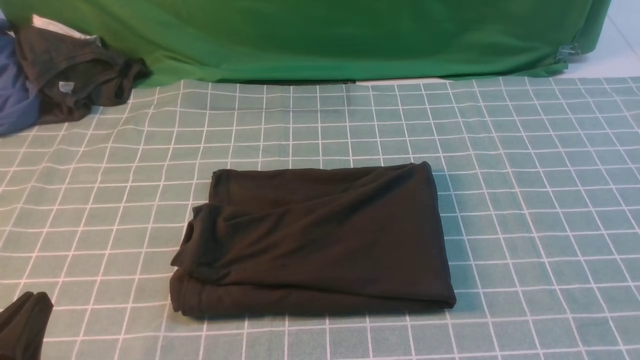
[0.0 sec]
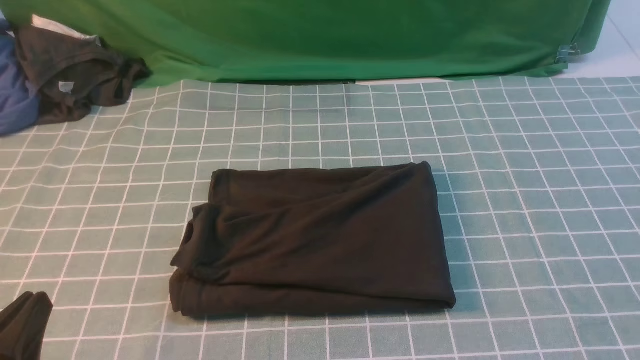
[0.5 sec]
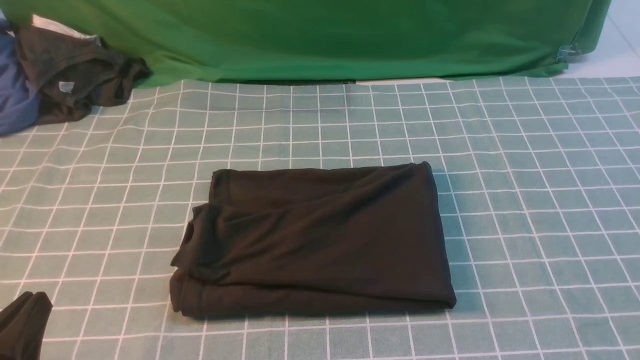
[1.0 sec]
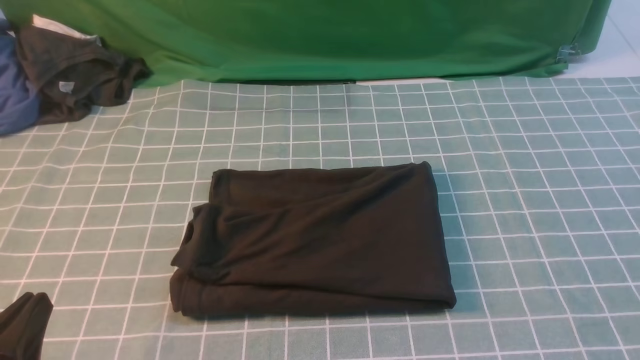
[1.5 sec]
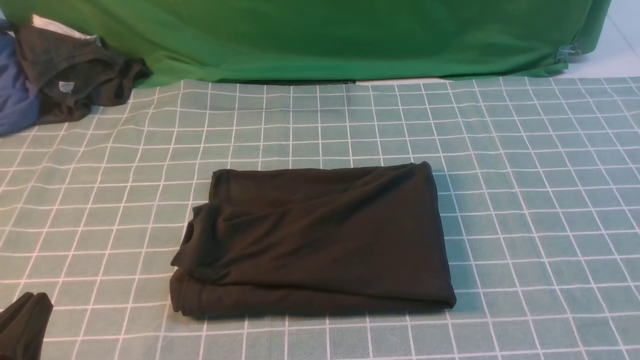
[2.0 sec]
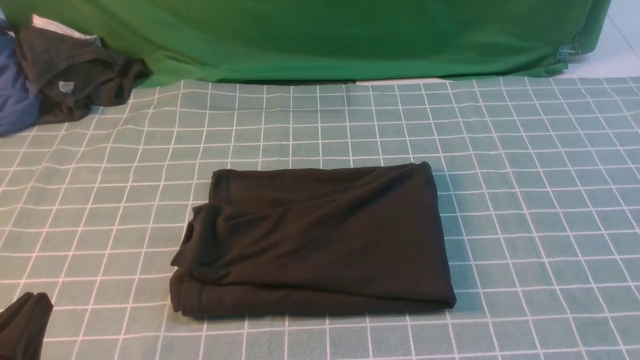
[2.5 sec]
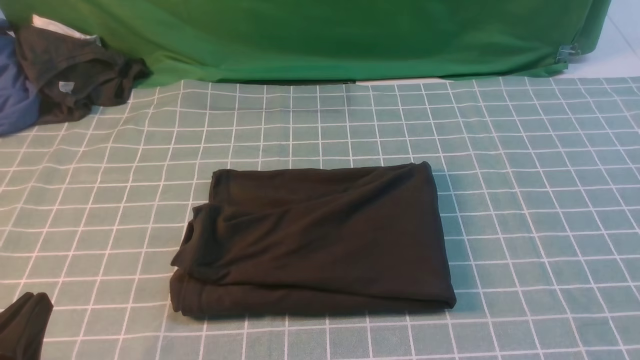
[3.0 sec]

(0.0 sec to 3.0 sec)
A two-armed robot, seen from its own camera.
1.5 sec - 3.0 sec: Neither gripper changes place.

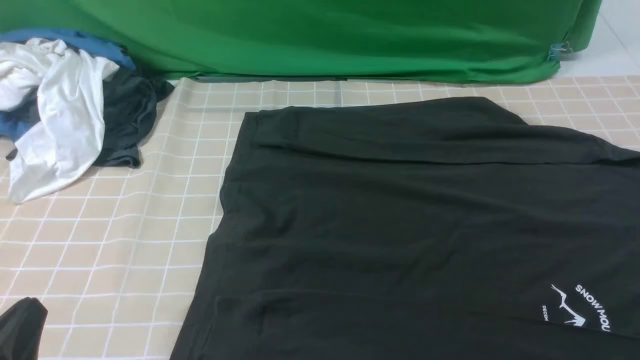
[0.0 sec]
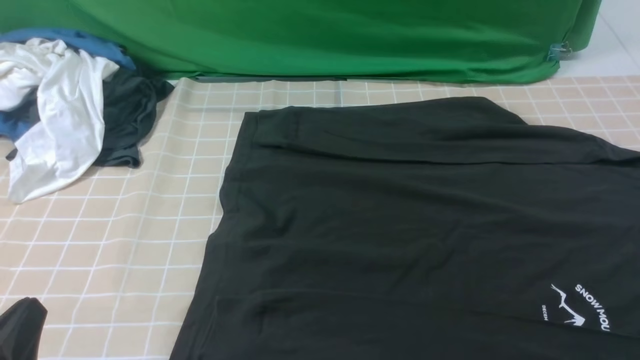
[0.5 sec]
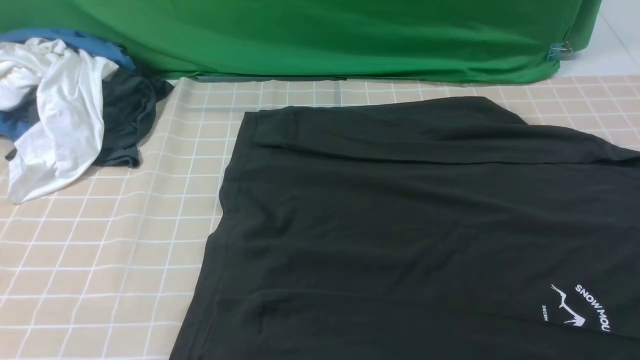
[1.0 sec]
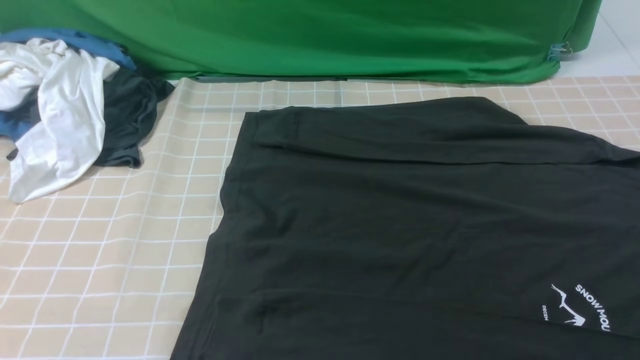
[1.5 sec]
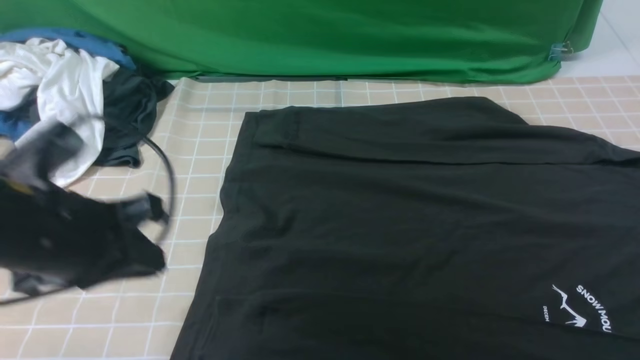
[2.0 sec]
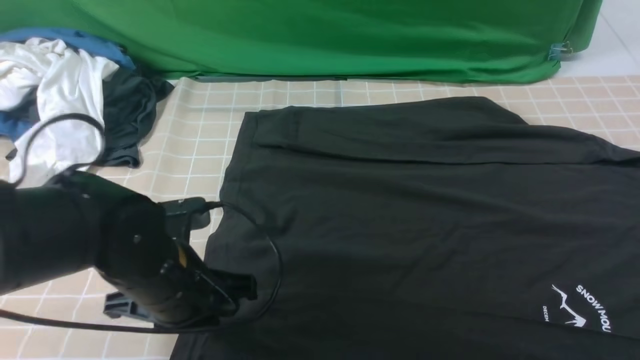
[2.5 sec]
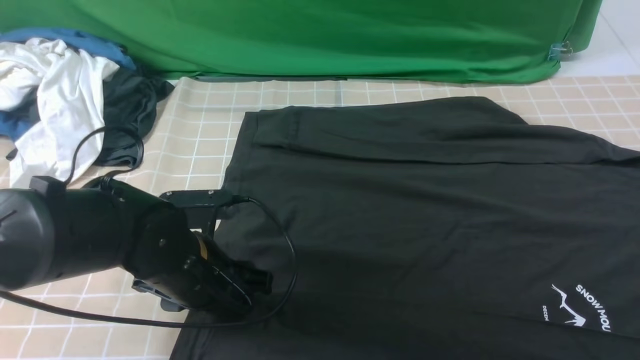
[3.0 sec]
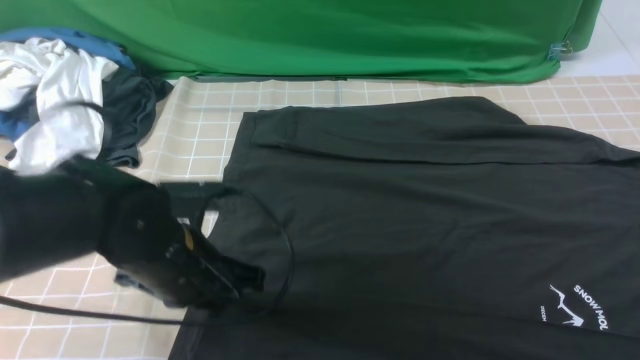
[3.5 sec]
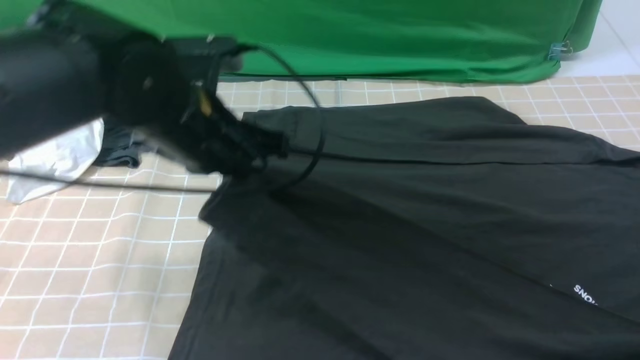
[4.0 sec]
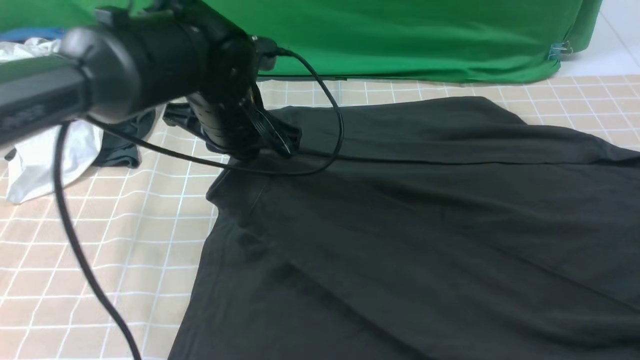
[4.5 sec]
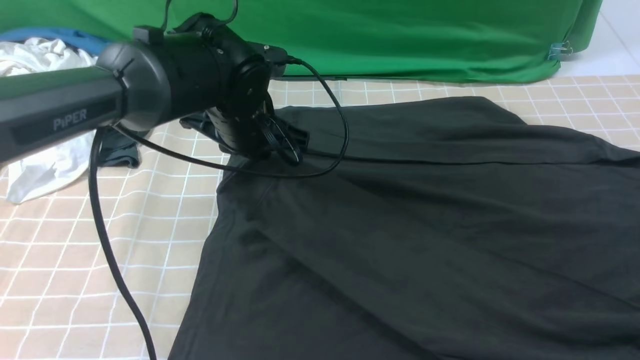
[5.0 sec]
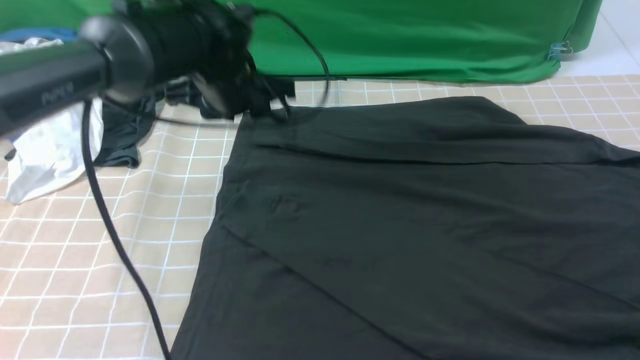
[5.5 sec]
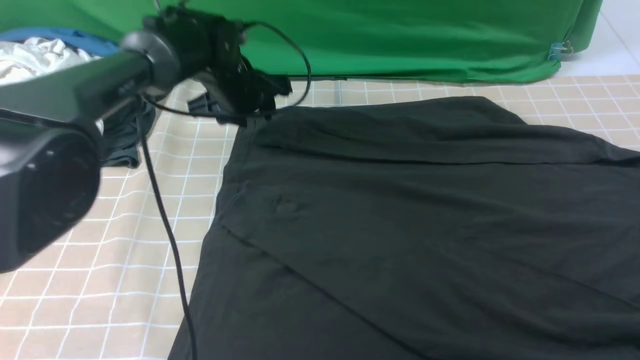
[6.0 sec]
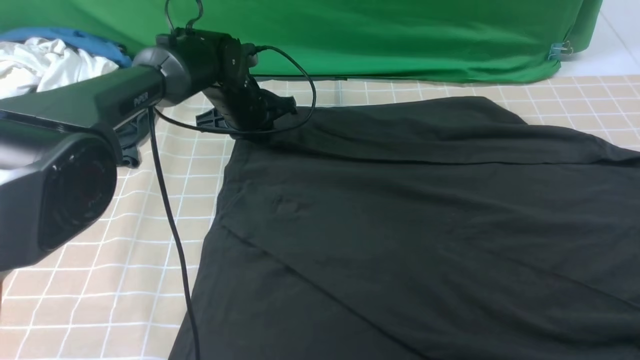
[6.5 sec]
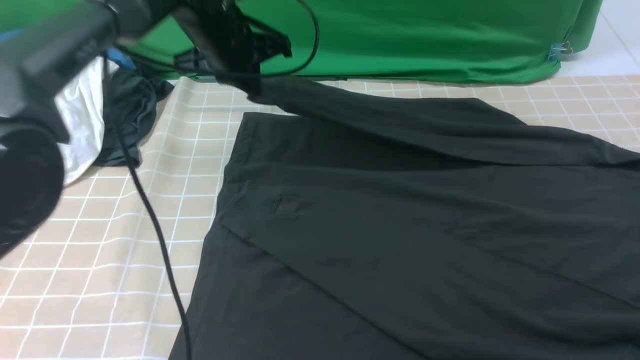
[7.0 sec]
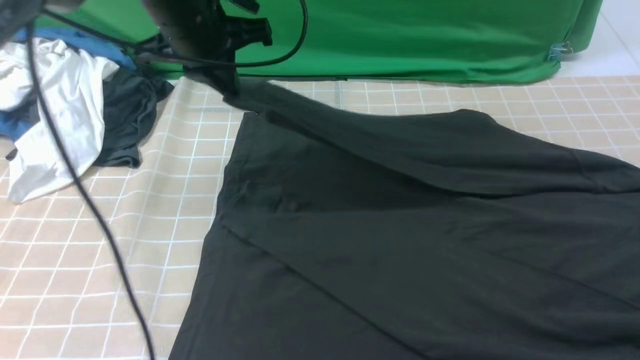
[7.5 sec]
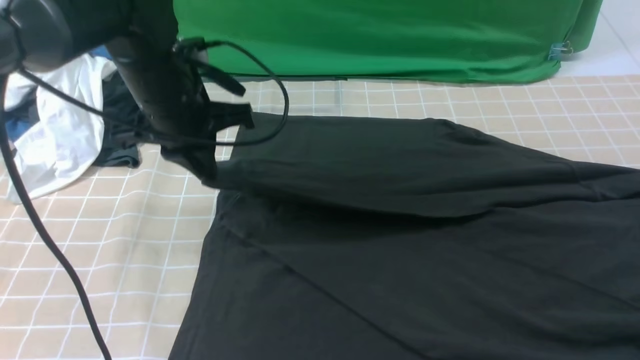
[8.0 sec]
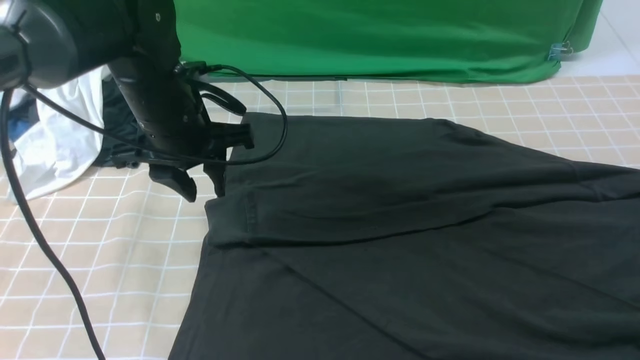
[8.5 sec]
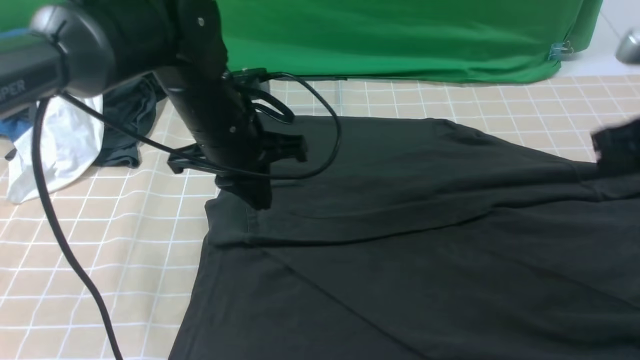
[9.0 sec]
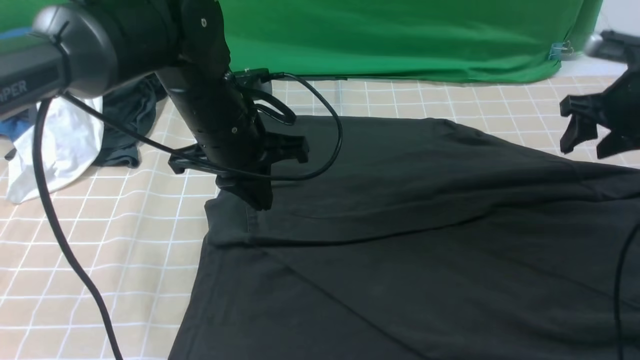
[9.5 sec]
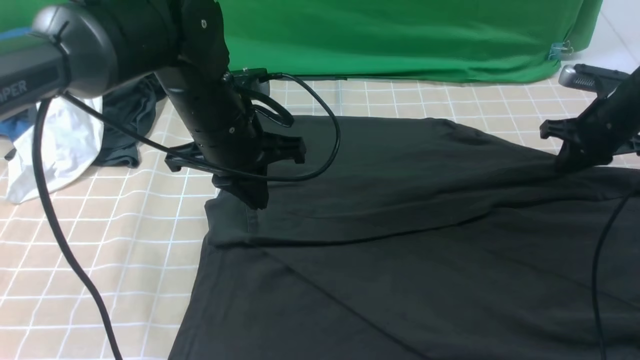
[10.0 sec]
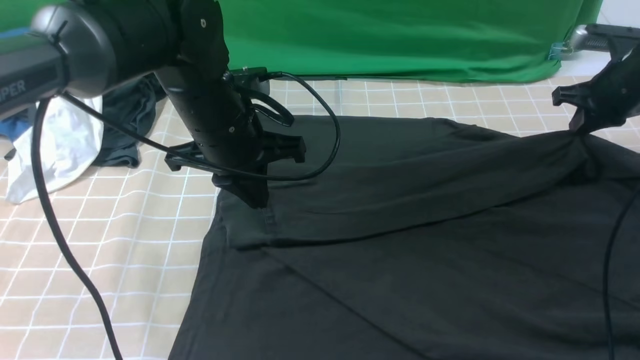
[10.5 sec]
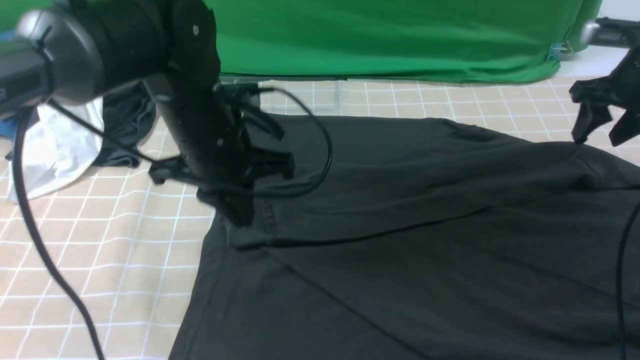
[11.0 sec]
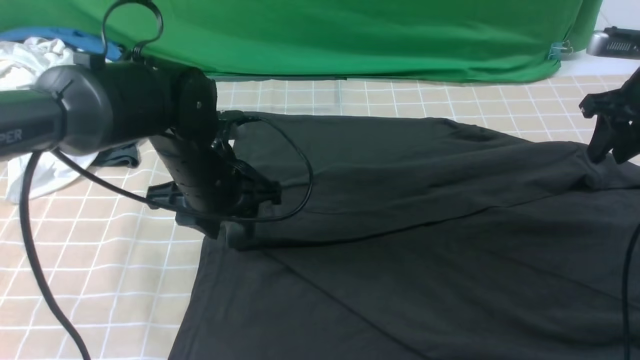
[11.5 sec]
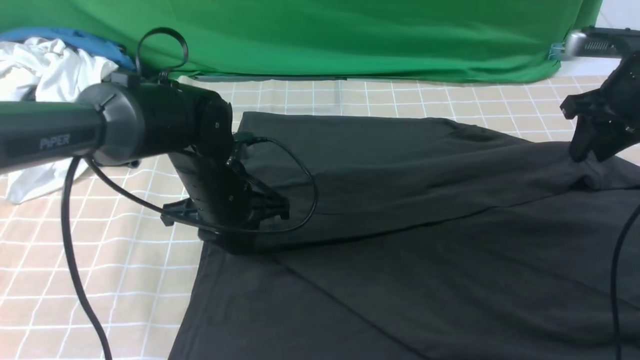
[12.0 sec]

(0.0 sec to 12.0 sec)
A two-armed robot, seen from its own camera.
Step, 0.0 sec - 3.0 sec: use the left arm to clamp the cuff closest to it.
Step, 3.5 sec - 5.0 sec: use the left arm to drag and place the cuff at the centered position on the left edge of the fabric.
Step, 5.5 sec - 6.5 sec: use the left arm to clamp the cuff farthest from it.
Step, 7.0 sec - 8.0 sec: use the left arm to drag and drop the cuff onto the cuff closest to the left arm.
0.0 sec - 2.0 sec: The left gripper is displaced forward and upward by approximately 15 cm.
2.0 sec - 4.0 sec: The left gripper travels forward and to the right by roughly 15 cm, travels downward and back again, roughly 10 cm each way, and opens, then closes once more. The right gripper moves forward, approximately 5 cm.
4.0 sec - 6.0 sec: The left gripper is displaced forward and downward by approximately 20 cm, and opens its fingers.
6.0 sec - 8.0 sec: The left gripper travels backward and upward by approximately 15 cm, and closes its fingers.
8.0 sec - 10.0 sec: The right gripper moves forward and downward, roughly 35 cm, and opens, then closes once more, while the left gripper travels to the right by some 5 cm, and opens, then closes again.
10.0 sec - 12.0 sec: The right gripper moves upward, some 10 cm. Meanwhile the left gripper goes some 10 cm downward, and opens its fingers.

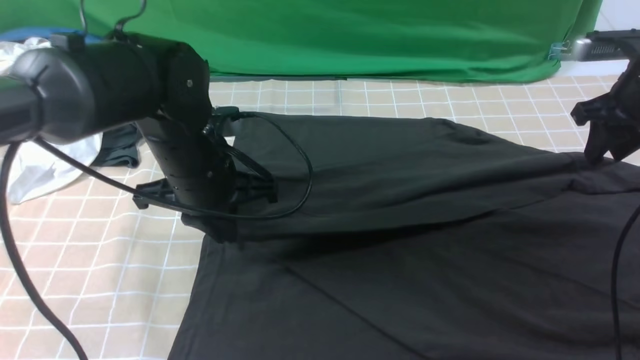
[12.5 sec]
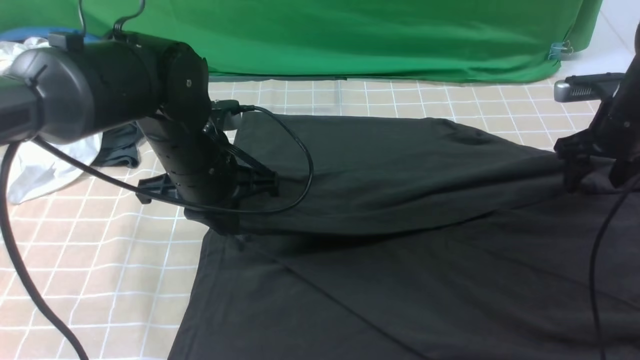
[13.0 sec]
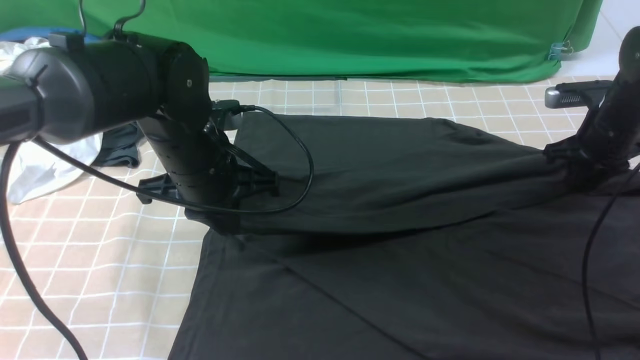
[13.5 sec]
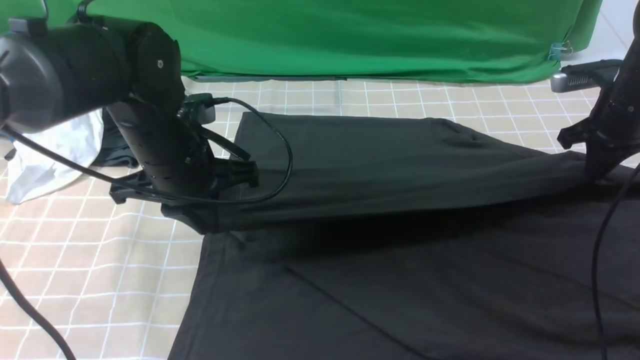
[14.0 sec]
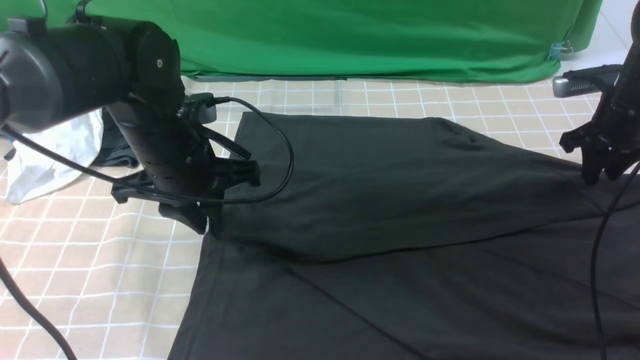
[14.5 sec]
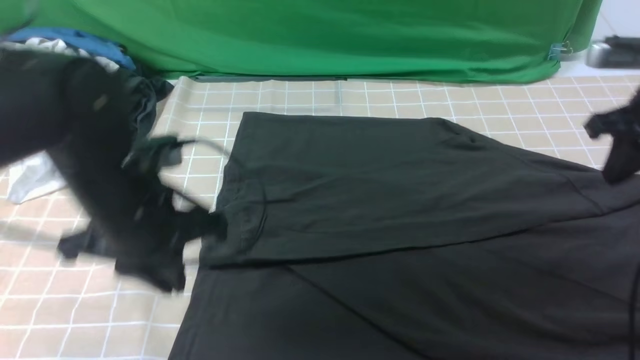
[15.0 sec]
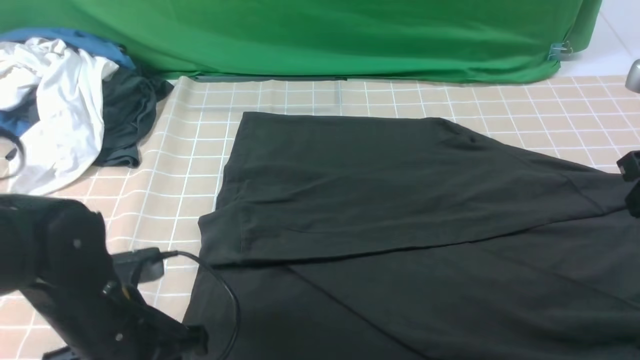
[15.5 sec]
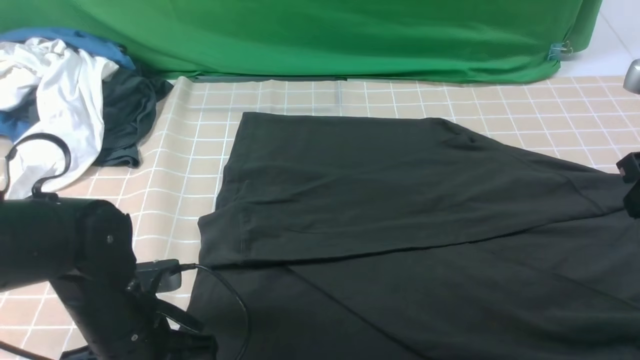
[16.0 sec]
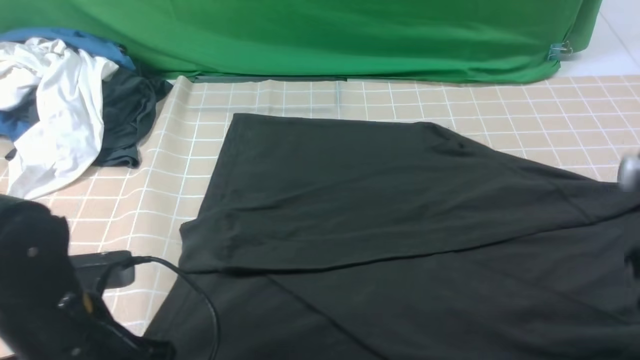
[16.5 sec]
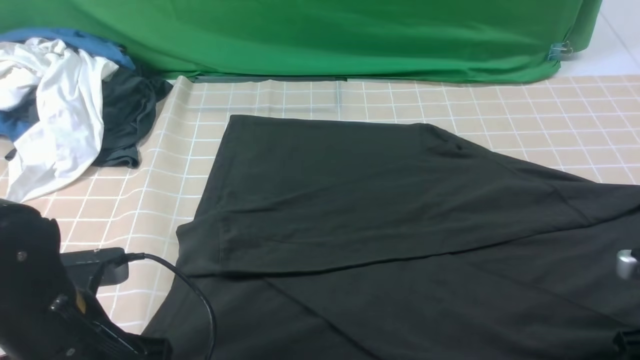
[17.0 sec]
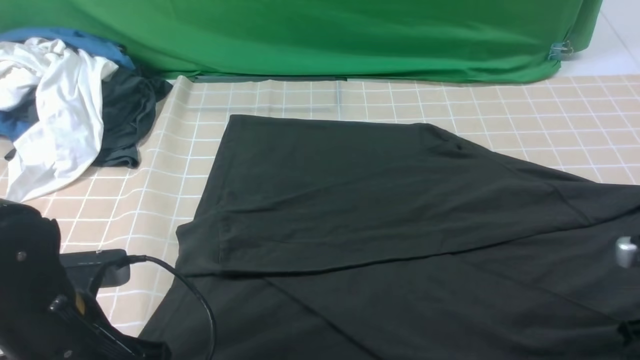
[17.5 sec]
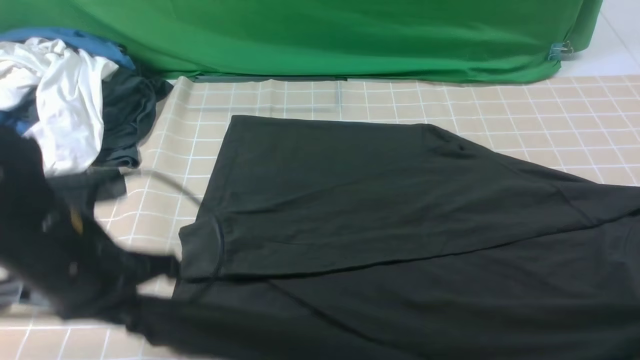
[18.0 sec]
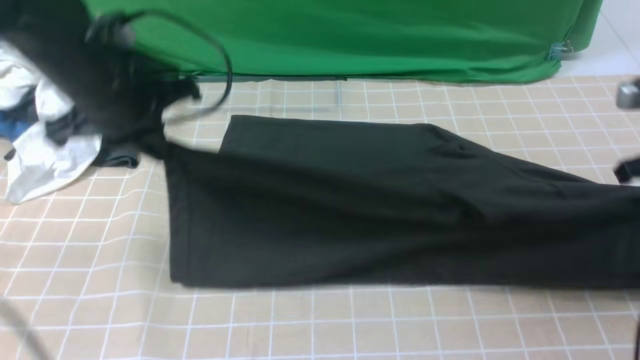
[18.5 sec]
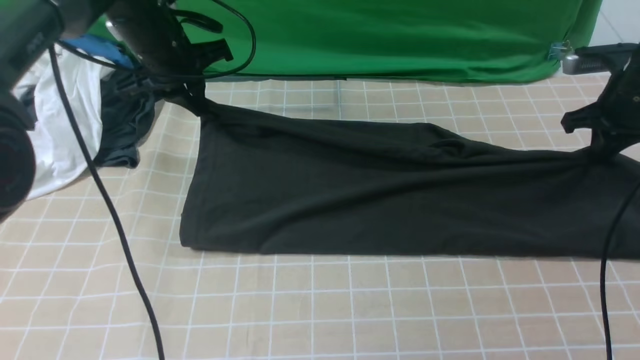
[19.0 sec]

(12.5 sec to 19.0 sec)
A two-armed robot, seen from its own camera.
Step, 12.5 sec - 17.0 sec: use both arms simultaneously to clamp the lower edge of the clothing fabric.
12.5 sec - 14.5 sec: The left gripper opens its fingers; the right gripper closes and opens again.
14.5 sec - 17.0 sec: Both grippers travel together backward, roughly 20 cm. The right gripper opens up. Meanwhile the left gripper closes up.
17.0 sec - 19.0 sec: The two grippers go about 30 cm forward. The right gripper closes its fingers.
